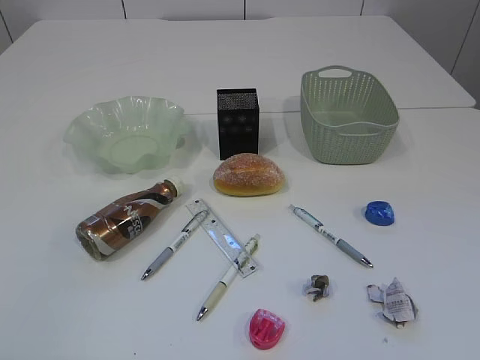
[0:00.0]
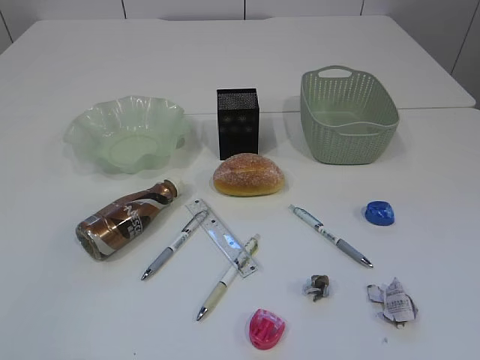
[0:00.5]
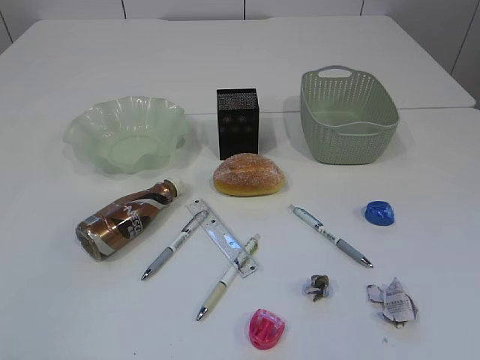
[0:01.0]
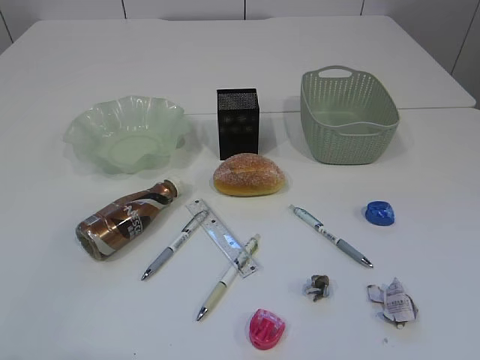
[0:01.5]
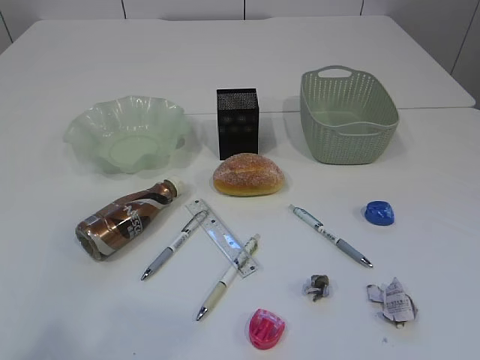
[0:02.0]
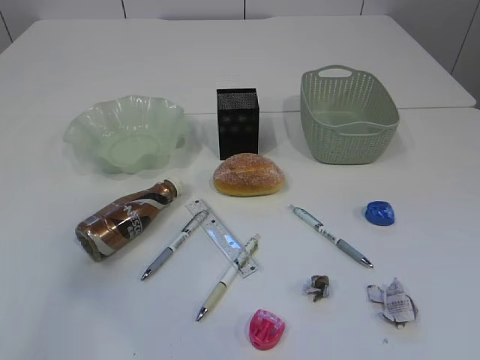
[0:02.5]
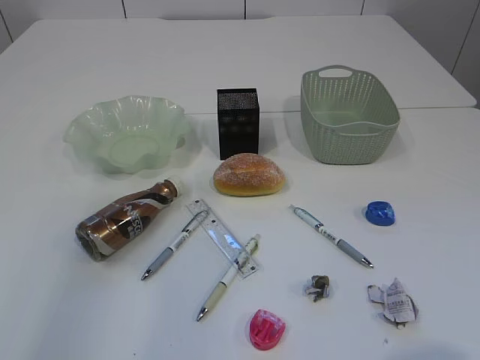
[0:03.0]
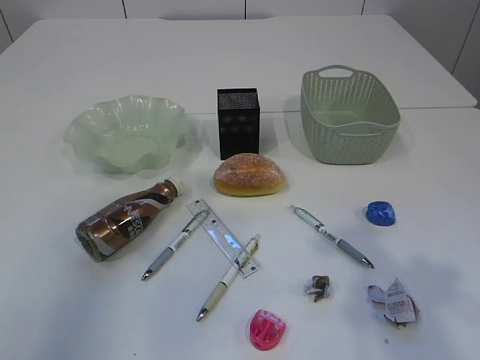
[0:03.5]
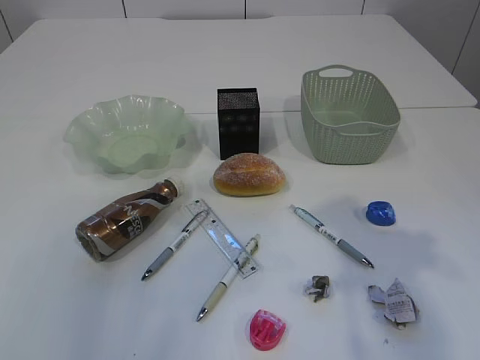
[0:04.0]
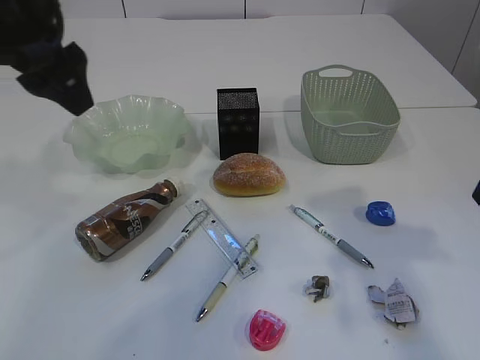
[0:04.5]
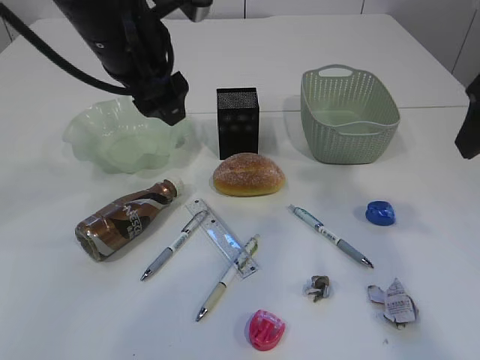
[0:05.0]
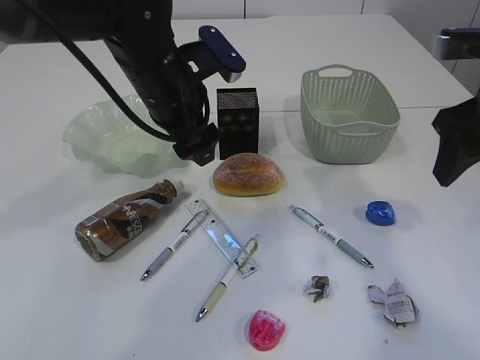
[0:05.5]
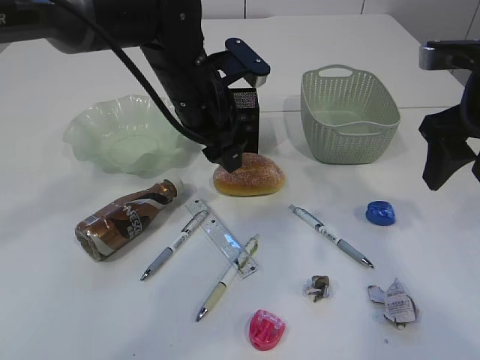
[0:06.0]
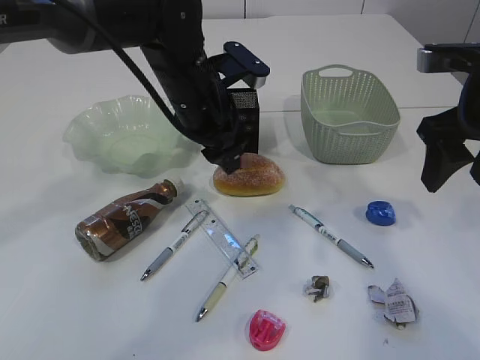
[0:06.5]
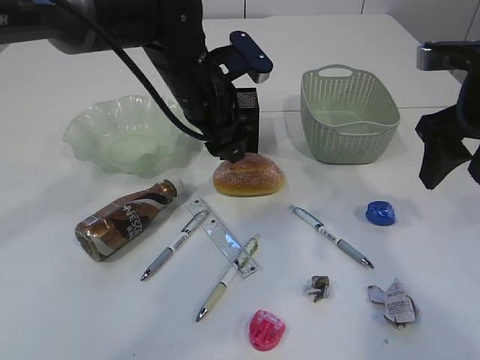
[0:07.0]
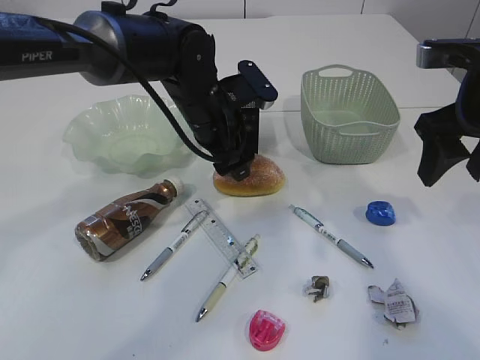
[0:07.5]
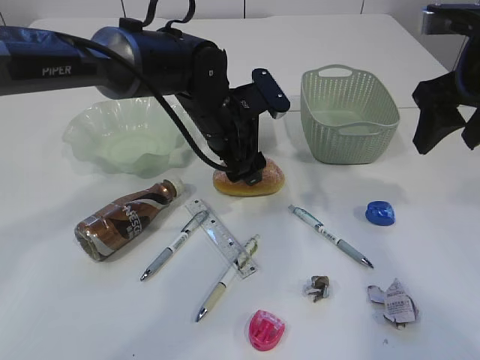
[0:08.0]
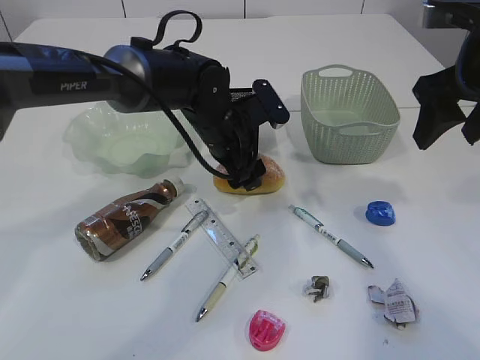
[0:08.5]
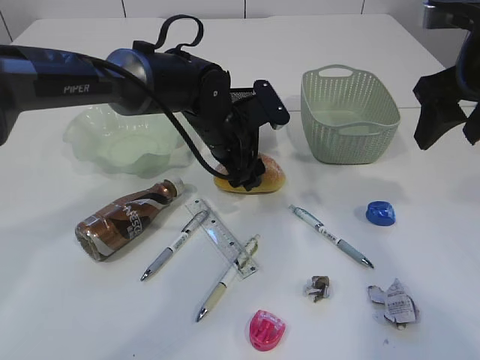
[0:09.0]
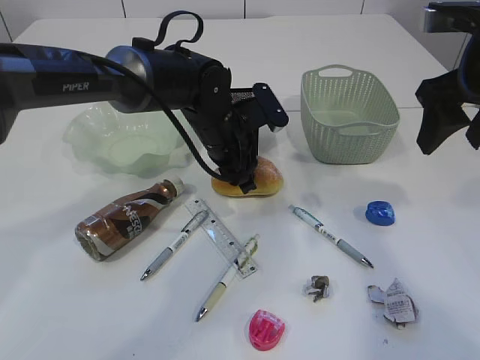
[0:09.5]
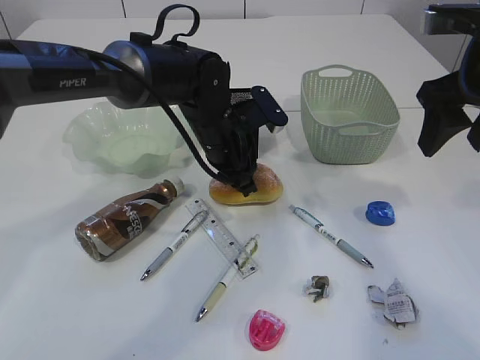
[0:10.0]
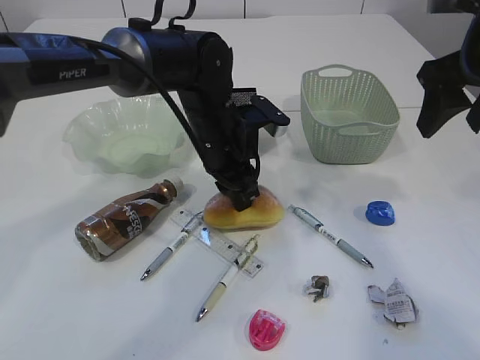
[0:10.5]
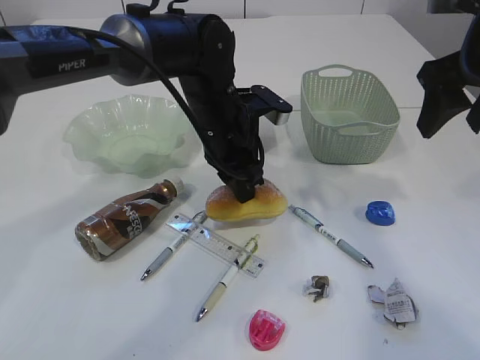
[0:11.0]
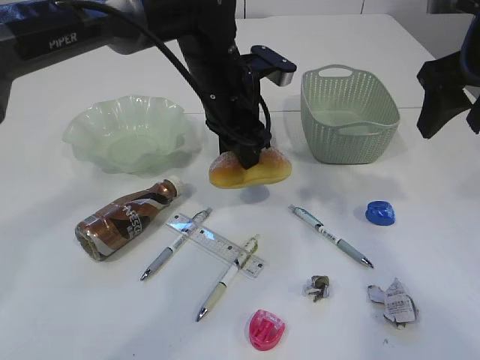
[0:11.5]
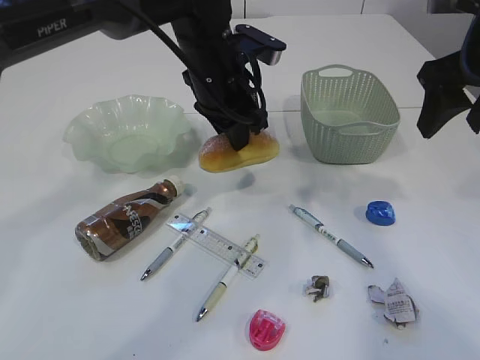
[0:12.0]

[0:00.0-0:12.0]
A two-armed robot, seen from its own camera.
2.0 to 4.0 s: Both grippers travel together forward, about 20 cm.
4.0 to 6.0 s: The left gripper shifts about 30 cm to the right, forward and downward, while the right gripper travels forward by some 10 cm.
6.0 to 8.0 s: The left gripper is displaced downward by approximately 5 cm.
8.0 to 10.0 s: The left gripper closes up.
10.0 to 12.0 s: The left gripper travels upward by some 10 cm.

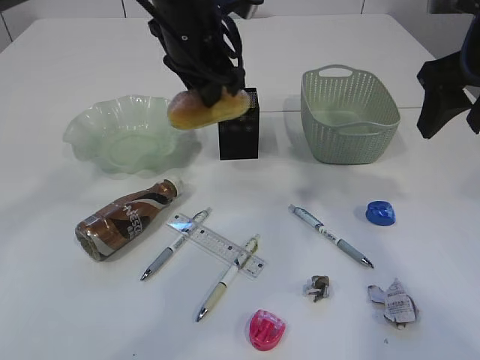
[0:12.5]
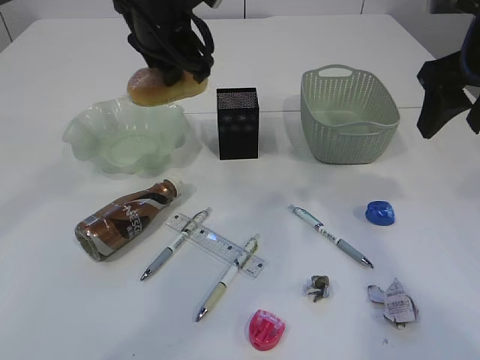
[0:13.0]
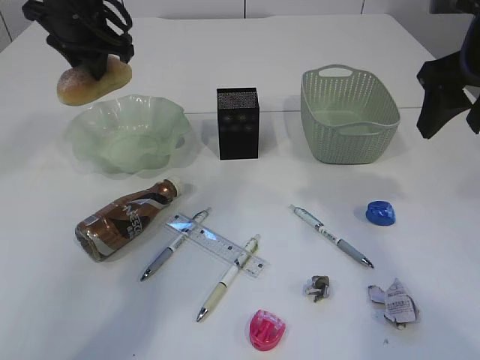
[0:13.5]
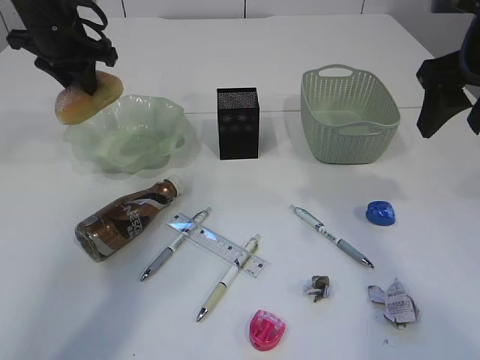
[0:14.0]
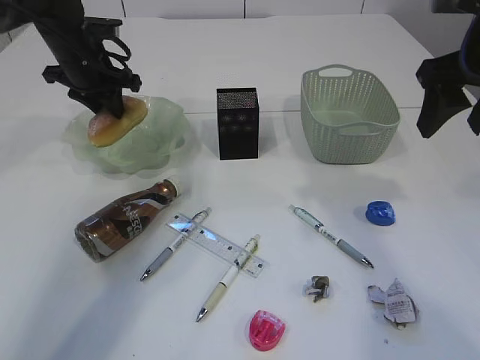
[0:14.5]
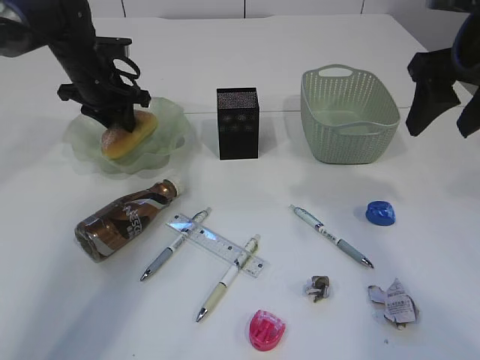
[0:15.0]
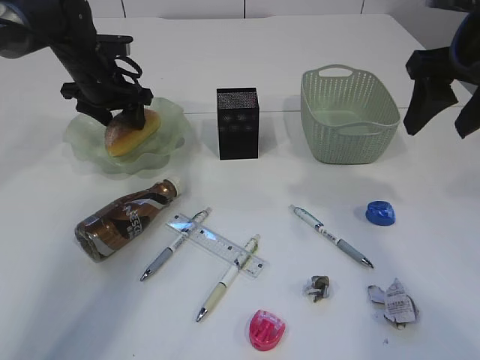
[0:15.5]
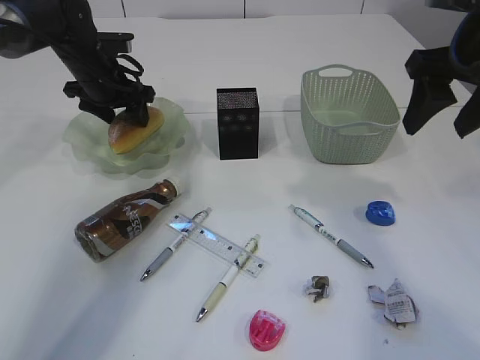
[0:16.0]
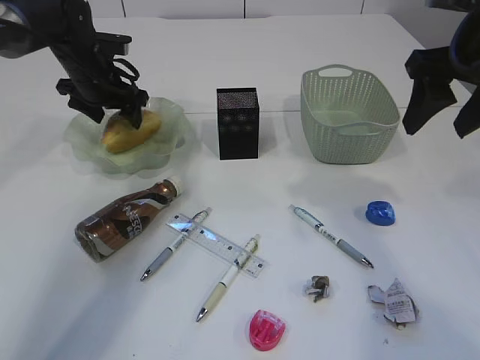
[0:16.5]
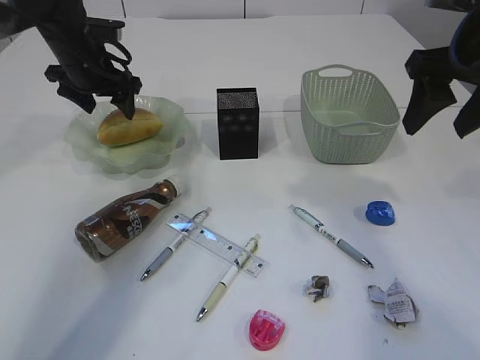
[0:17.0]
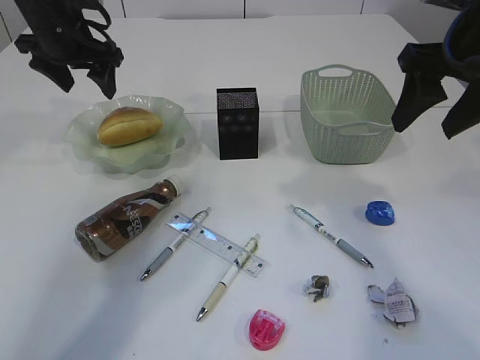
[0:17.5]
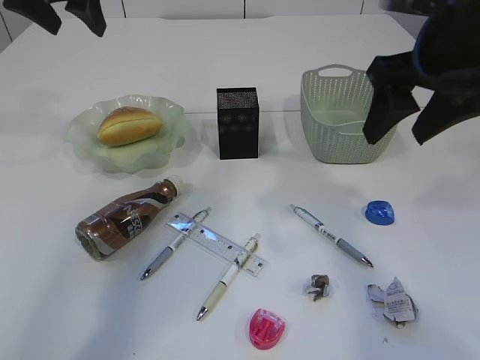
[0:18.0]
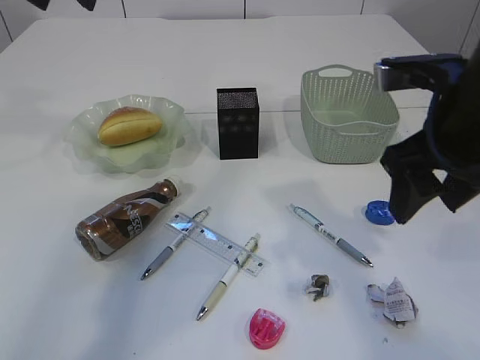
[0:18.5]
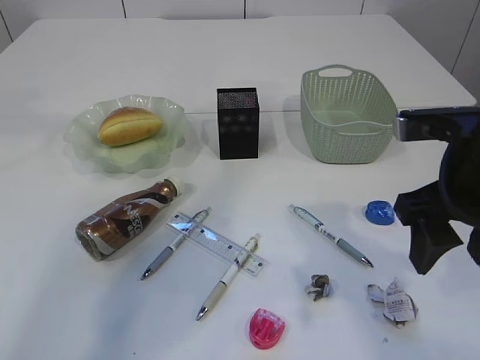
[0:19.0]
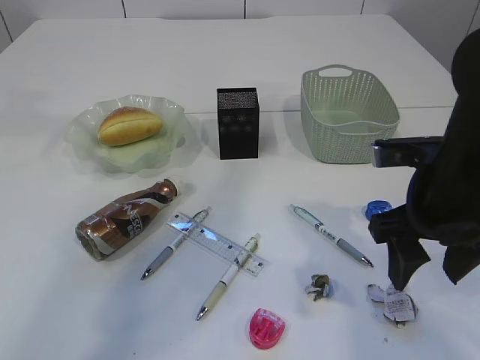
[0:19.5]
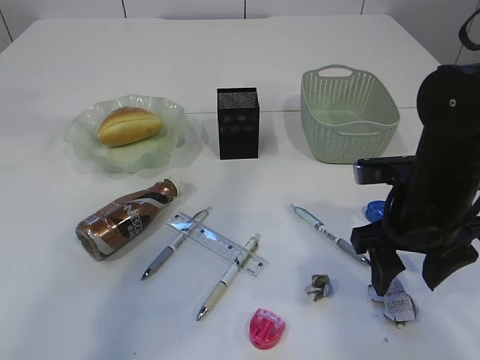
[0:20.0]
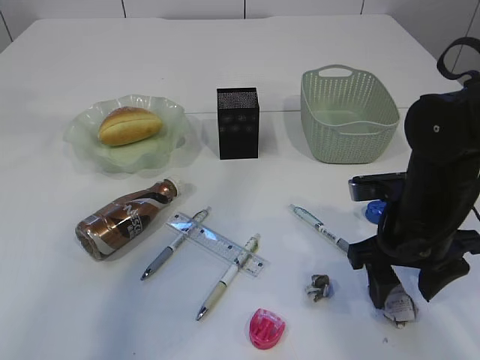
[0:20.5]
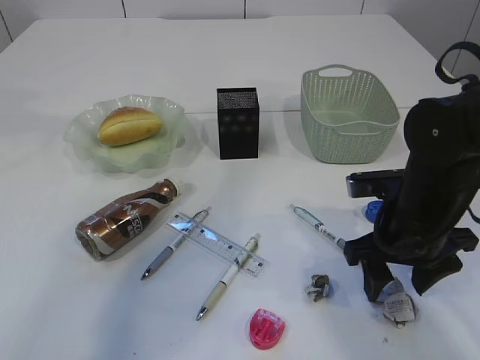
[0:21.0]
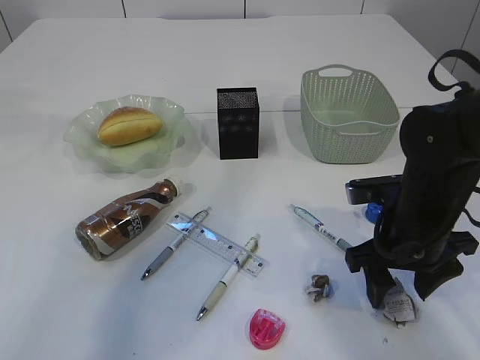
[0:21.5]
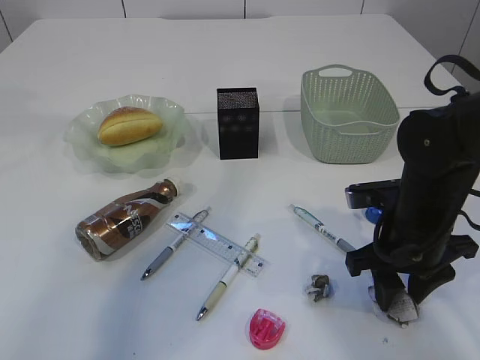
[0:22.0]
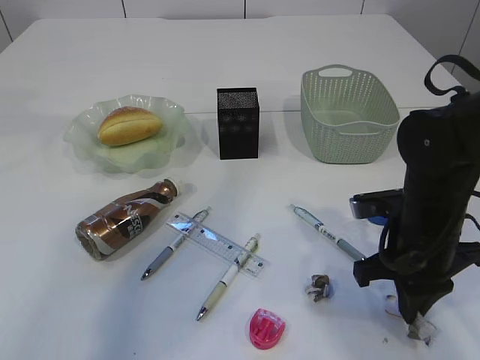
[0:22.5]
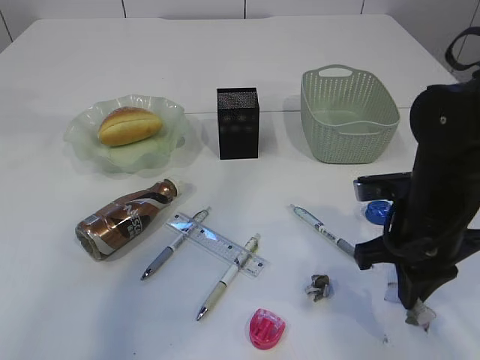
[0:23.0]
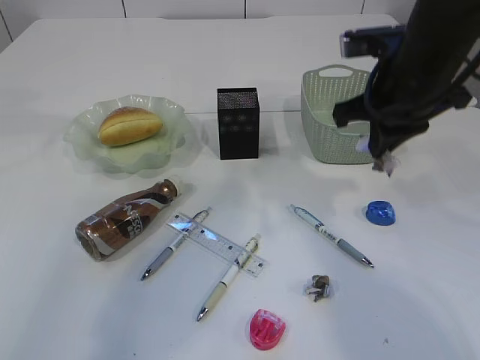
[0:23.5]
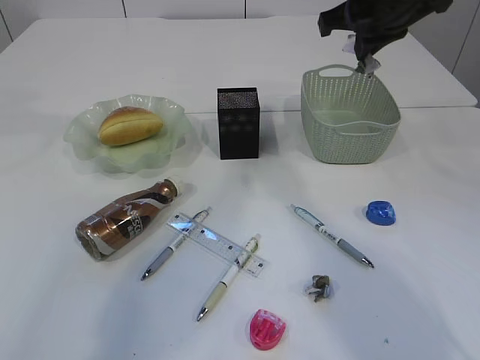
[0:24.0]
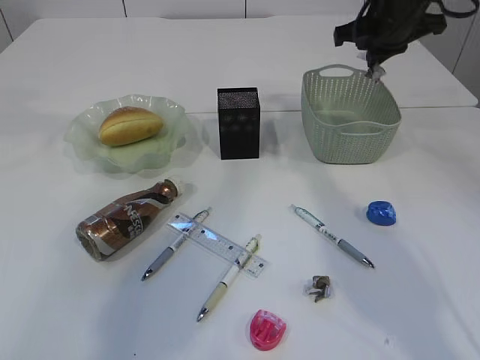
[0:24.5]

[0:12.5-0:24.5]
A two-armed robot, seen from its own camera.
Step, 12.5 to 17.5 s: place the bread in the plate.
Step, 18.0 to 23.0 s: Pick up the waste paper.
12.5 to 14.5 s: The left gripper shifts about 20 cm to the left, forward and downward.
14.5 to 16.5 s: The left gripper opens its fingers.
16.5 to 18.5 s: The left gripper shifts about 25 cm upward and backward, while the right gripper is displaced backward by approximately 5 cm.
18.5 to 20.5 s: The right gripper heads downward, covering some 15 cm.
20.5 to 22.5 s: The right gripper closes.
22.5 to 24.5 s: The right gripper is displaced forward and upward by about 25 cm.

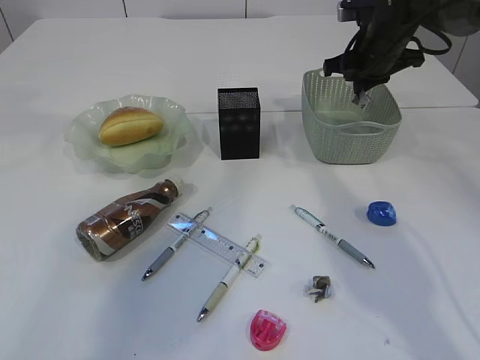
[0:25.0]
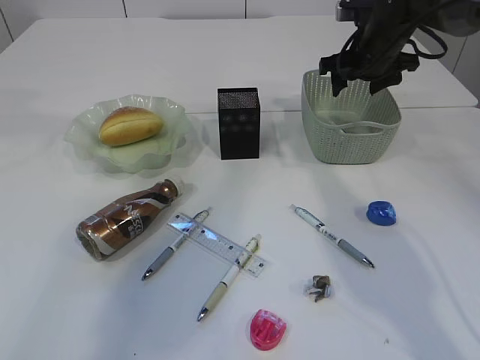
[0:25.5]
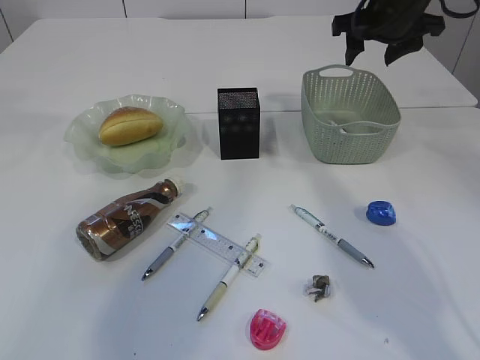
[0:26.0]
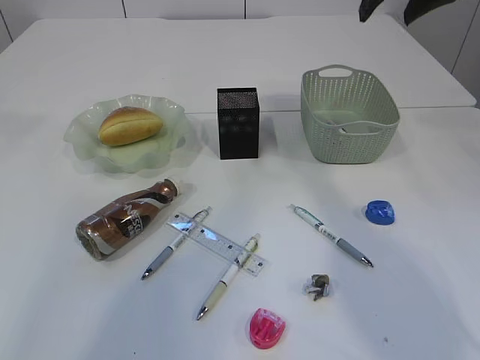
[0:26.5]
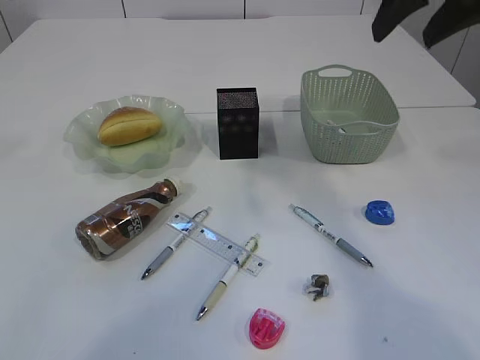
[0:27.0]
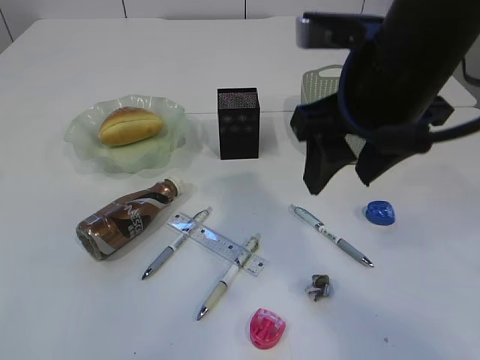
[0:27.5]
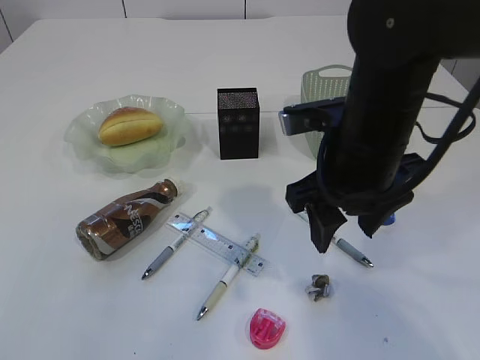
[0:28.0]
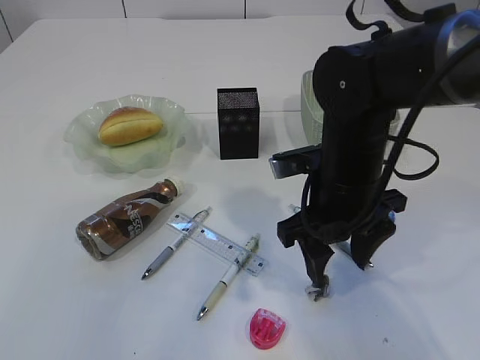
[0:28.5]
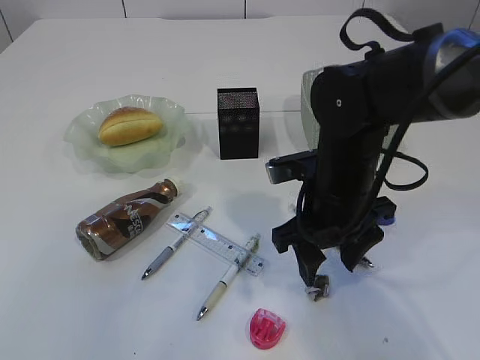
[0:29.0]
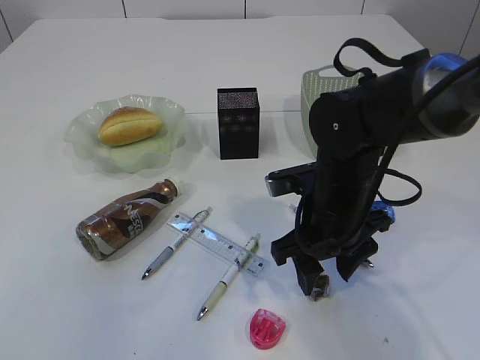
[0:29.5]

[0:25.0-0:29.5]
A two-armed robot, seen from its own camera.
25.0 to 27.0 s: The left gripper heads backward and upward, covering about 10 cm. Meanwhile the right gripper heads backward and upward, covering some 25 cm, and opens.
27.0 to 29.5 s: The left gripper heads backward, covering roughly 5 cm, while the right gripper is displaced downward and to the left by about 25 cm.
